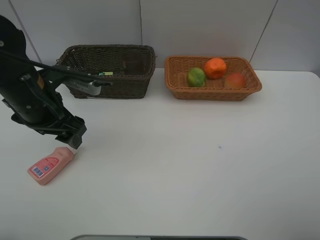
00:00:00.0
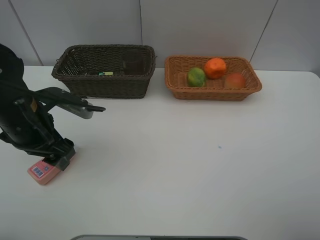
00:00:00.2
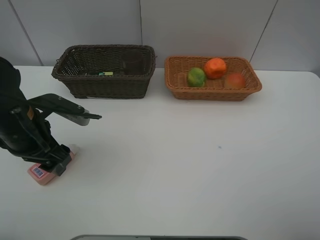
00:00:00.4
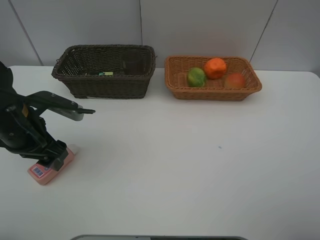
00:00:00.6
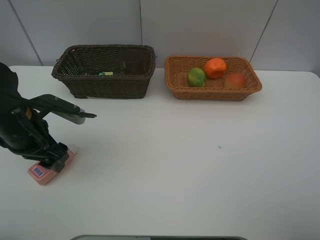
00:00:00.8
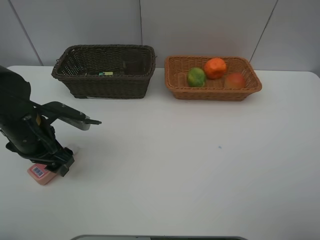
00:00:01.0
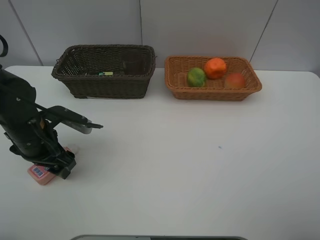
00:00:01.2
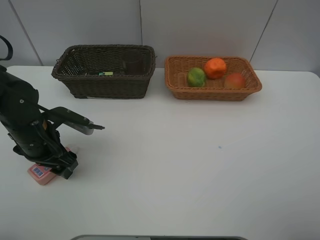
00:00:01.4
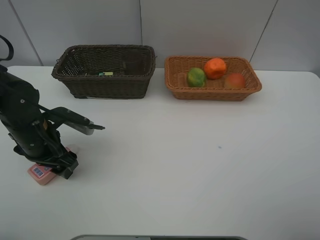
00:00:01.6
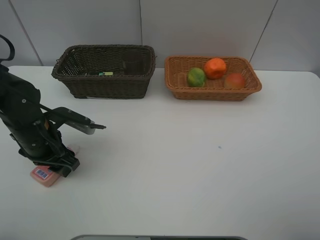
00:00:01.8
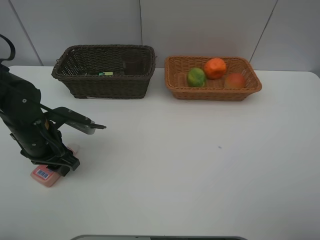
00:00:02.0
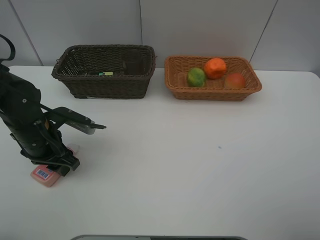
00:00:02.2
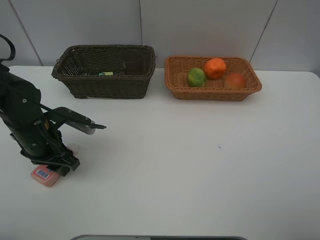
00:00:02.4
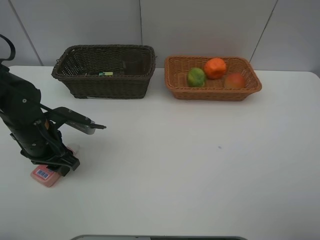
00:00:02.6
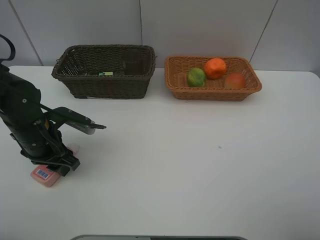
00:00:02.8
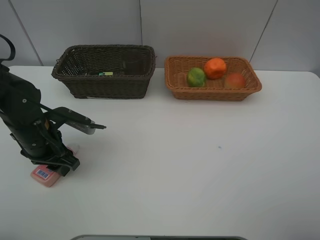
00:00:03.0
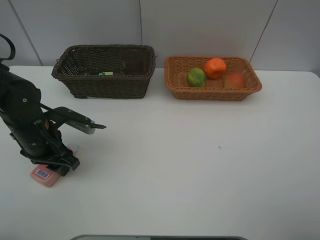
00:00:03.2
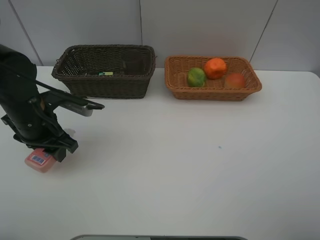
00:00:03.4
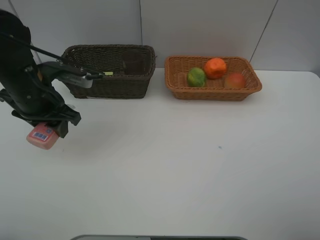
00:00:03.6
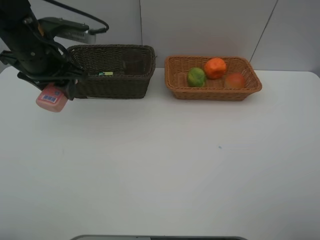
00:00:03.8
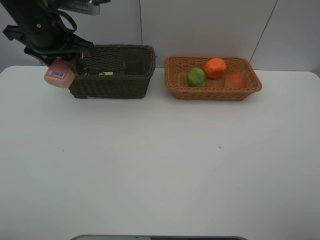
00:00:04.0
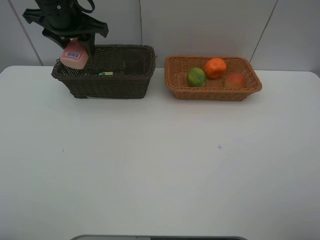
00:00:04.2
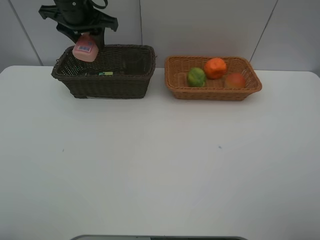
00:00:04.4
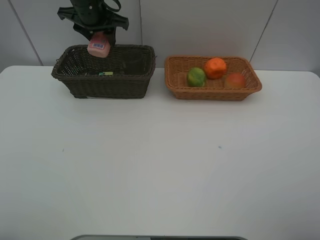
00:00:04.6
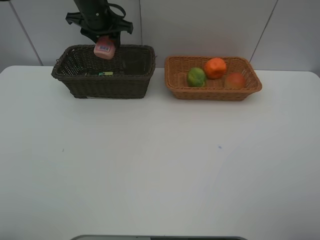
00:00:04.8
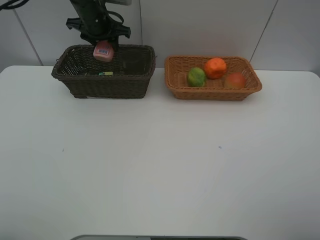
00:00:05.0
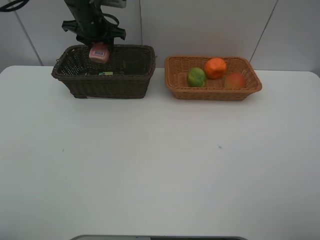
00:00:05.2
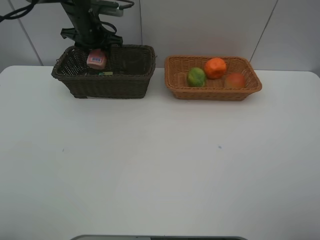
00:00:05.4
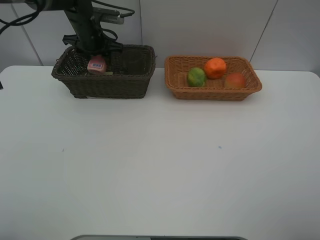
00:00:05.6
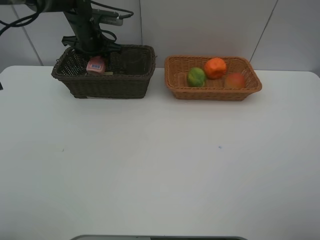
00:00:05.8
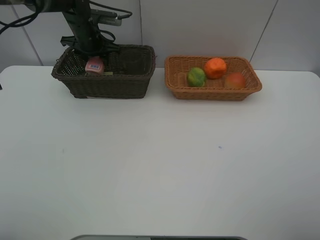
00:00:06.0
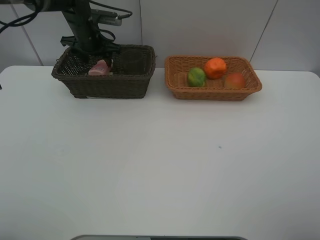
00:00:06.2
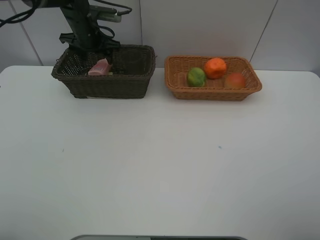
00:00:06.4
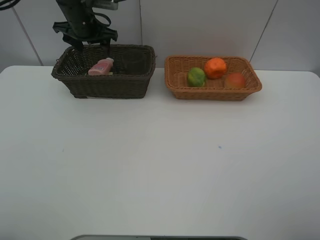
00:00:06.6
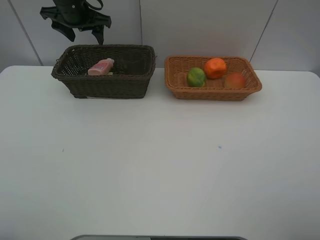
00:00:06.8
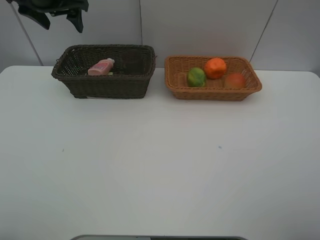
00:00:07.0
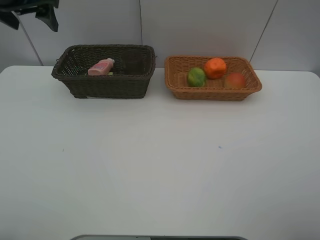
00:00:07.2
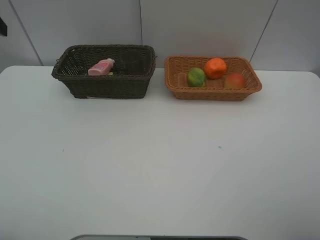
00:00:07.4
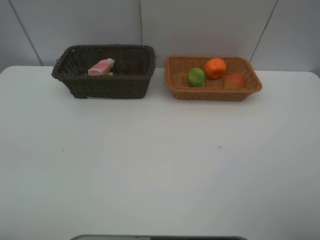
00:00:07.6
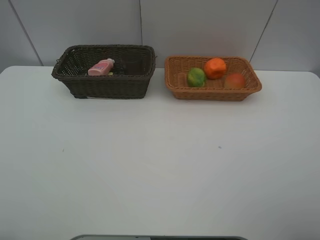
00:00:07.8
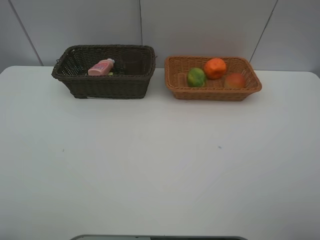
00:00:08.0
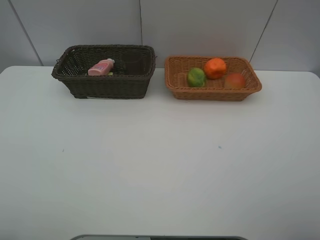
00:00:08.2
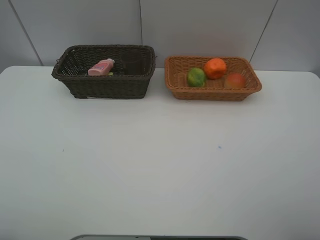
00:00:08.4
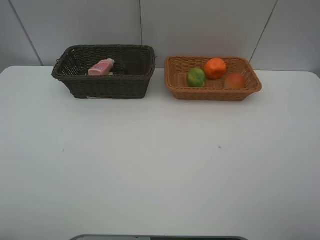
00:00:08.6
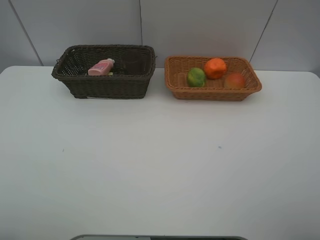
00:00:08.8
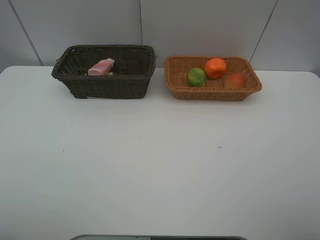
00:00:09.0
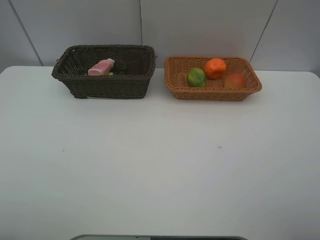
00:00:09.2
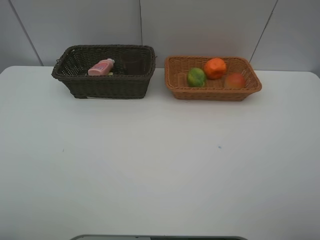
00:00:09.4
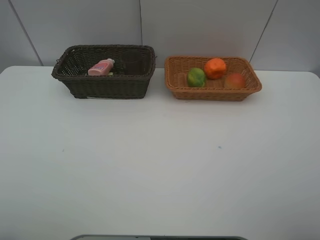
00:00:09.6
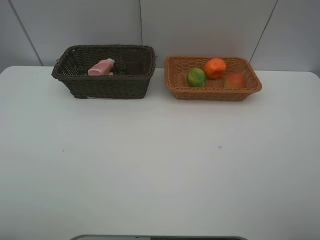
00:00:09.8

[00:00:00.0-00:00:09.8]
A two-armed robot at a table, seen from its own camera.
Task of the whole recording: place multiple objects separately in different baskets.
00:00:00.0 to 00:00:01.4: The left gripper travels downward by roughly 10 cm.
00:00:01.4 to 00:00:02.8: The left gripper closes its fingers.
00:00:02.8 to 00:00:04.2: The left gripper is displaced upward and forward by some 25 cm.
00:00:04.2 to 00:00:05.6: The left gripper heads forward and downward, covering roughly 15 cm.
00:00:05.6 to 00:00:07.0: The left gripper goes approximately 15 cm upward, backward and to the left, and opens up.
00:00:07.0 to 00:00:08.4: The left gripper moves backward, some 50 cm.

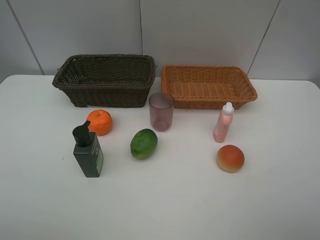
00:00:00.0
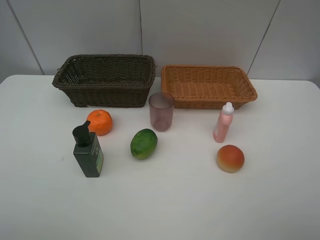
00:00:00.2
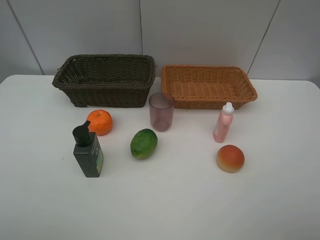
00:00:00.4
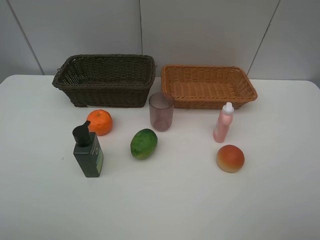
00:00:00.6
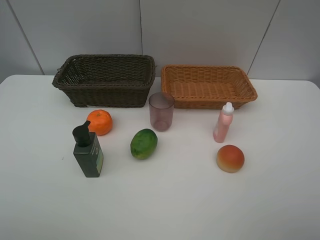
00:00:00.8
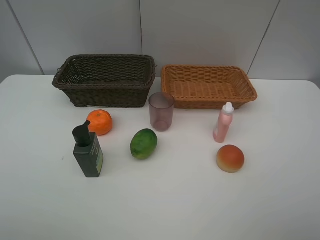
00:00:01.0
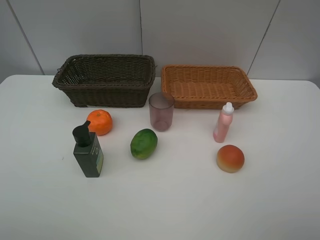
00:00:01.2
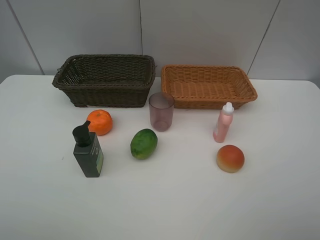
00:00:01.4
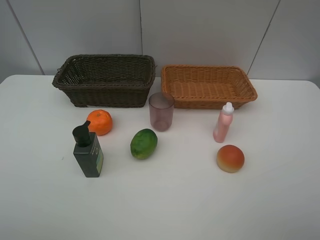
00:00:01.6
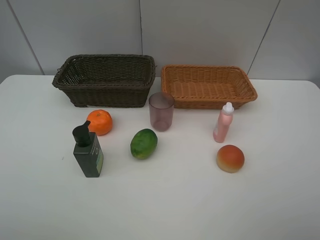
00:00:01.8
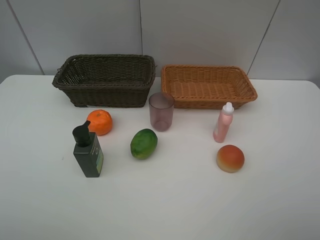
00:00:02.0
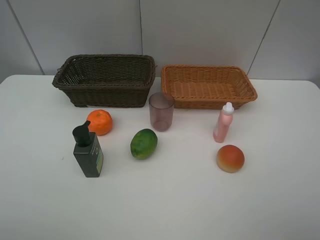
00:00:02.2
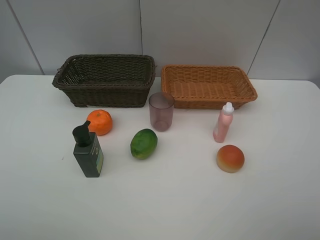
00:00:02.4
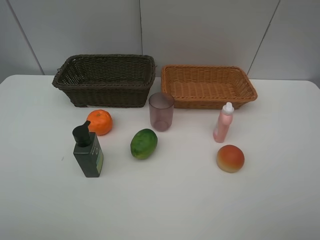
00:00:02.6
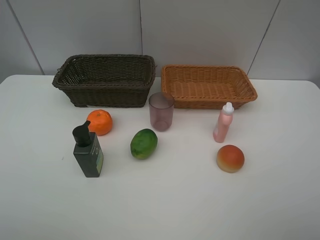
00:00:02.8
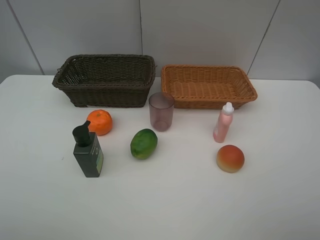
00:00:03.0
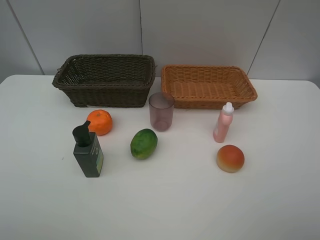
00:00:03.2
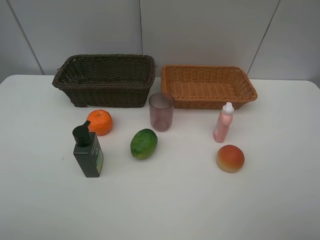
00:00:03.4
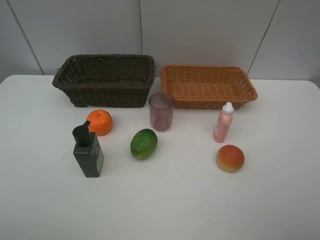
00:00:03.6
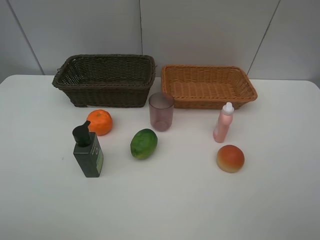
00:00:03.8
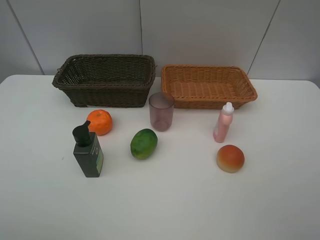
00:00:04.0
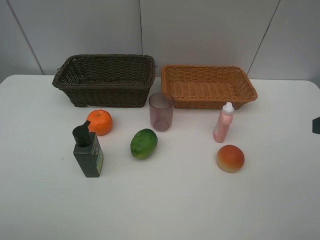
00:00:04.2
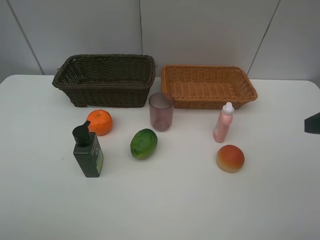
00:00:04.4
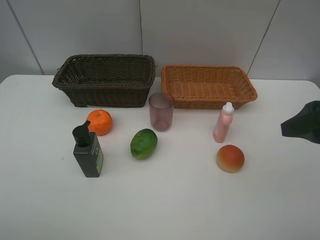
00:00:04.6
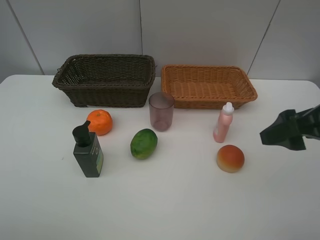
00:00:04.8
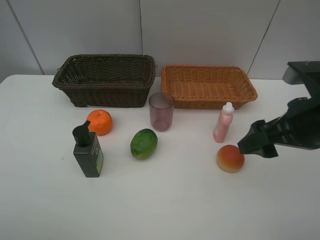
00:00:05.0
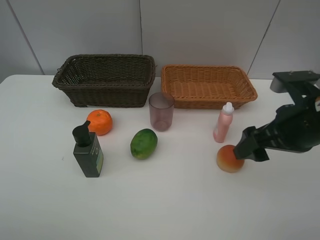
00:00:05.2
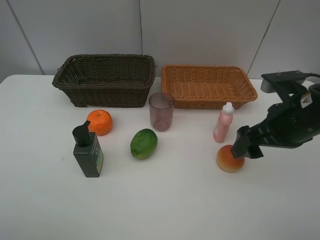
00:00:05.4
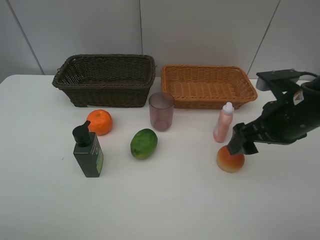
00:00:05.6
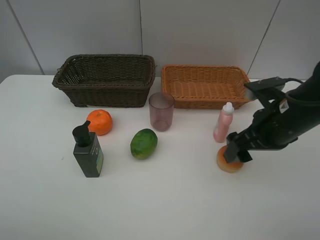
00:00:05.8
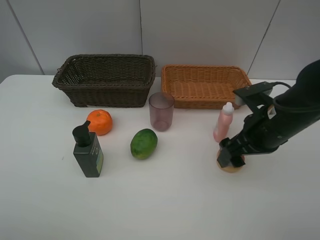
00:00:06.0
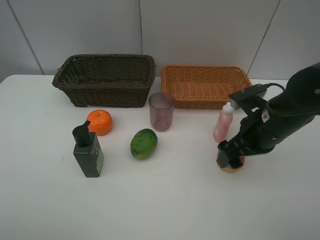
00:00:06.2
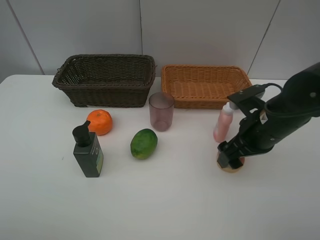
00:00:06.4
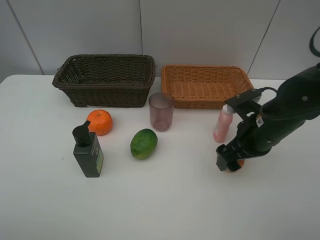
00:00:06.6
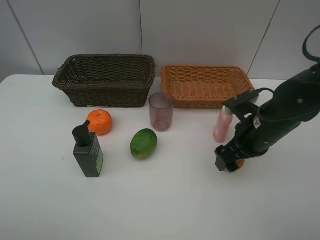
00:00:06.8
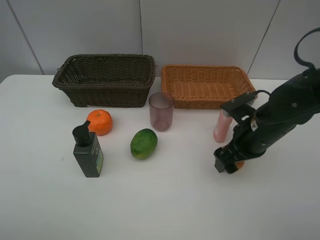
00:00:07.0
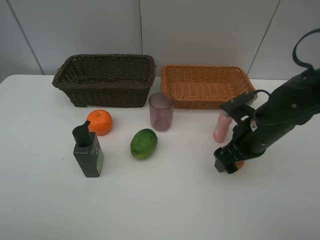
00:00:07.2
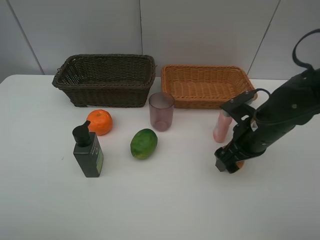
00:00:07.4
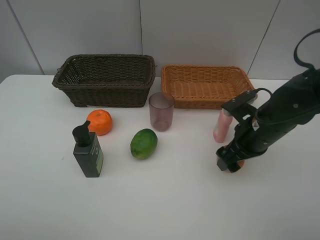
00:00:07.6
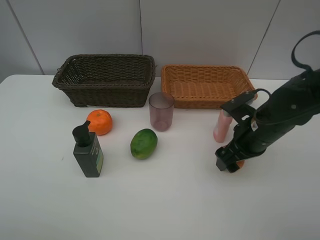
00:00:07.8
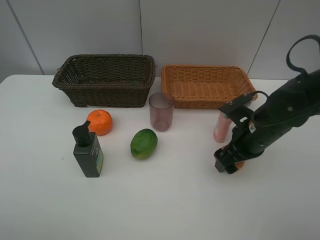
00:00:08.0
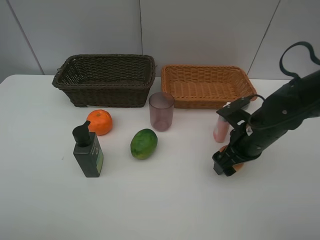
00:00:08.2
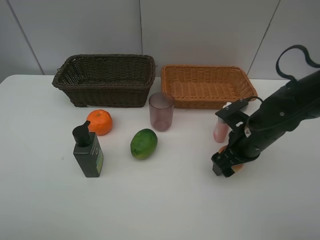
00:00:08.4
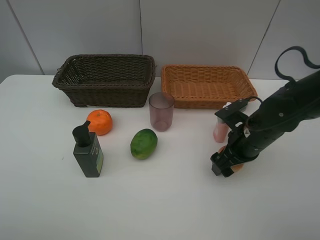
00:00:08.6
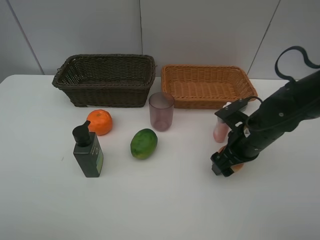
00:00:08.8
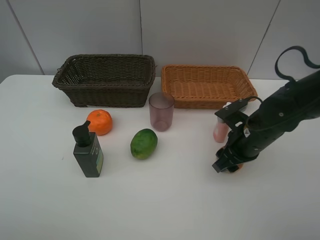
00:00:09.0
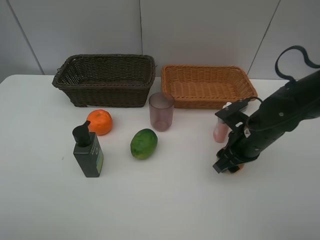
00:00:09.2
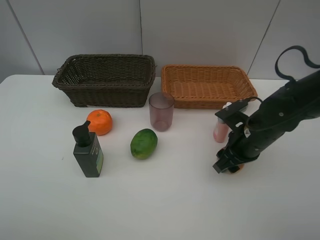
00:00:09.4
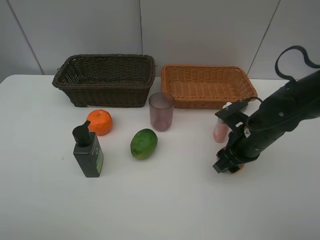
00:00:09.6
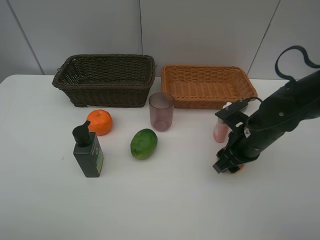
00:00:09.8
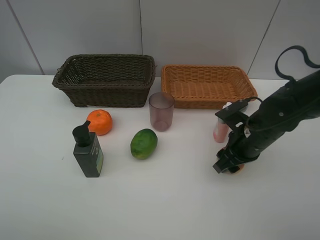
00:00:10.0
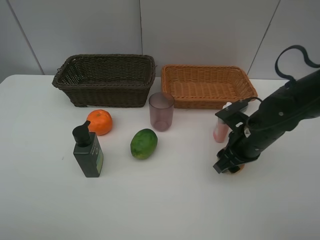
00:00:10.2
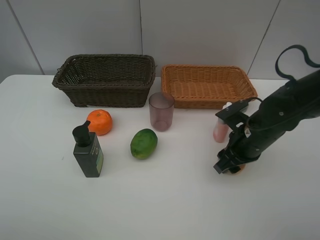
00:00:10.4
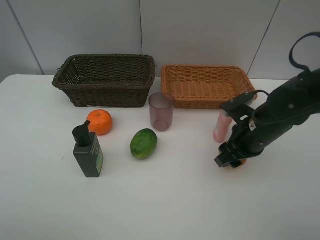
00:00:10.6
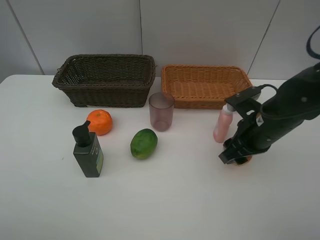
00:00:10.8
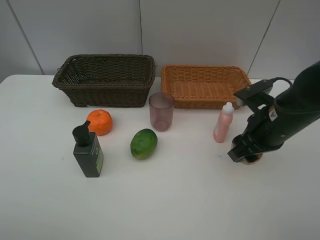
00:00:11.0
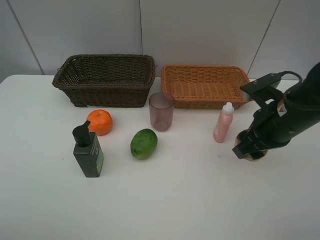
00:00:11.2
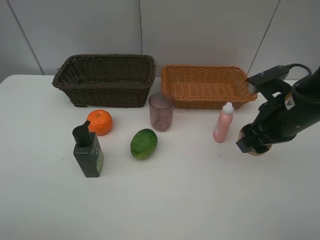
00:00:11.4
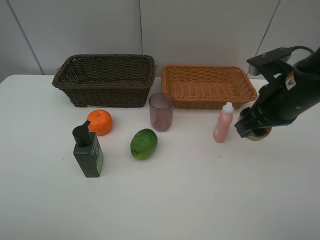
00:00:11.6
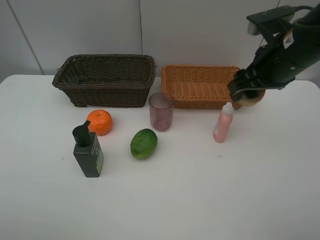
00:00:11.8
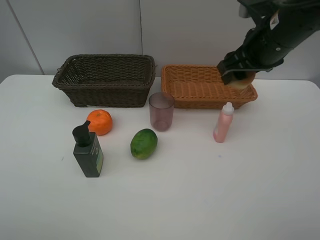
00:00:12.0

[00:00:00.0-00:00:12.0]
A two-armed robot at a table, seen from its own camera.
Task of the whole recording: place multiple objects separately in different baskets.
00:00:00.0 to 00:00:03.0: Both grippers stay put.
00:00:04.4 to 00:00:06.0: The right gripper travels downward, forward and to the left by roughly 20 cm.
00:00:06.0 to 00:00:07.6: The grippers stay close to where they were, moving slightly.
00:00:07.6 to 00:00:09.0: The right gripper closes.
00:00:09.0 to 00:00:10.4: Both grippers stay about where they are.
00:00:10.4 to 00:00:12.0: The right gripper moves upward, approximately 20 cm.
